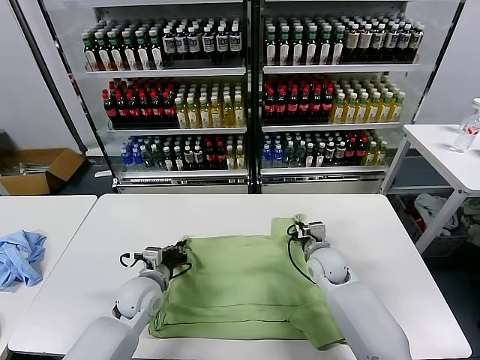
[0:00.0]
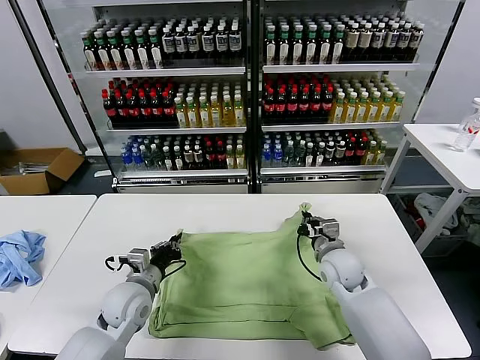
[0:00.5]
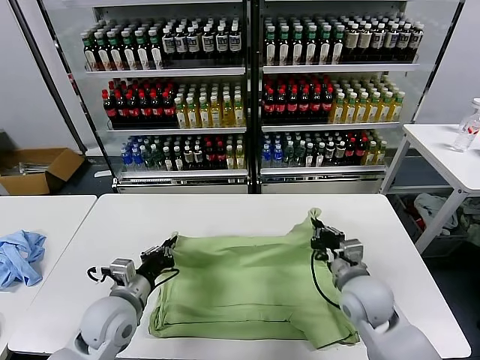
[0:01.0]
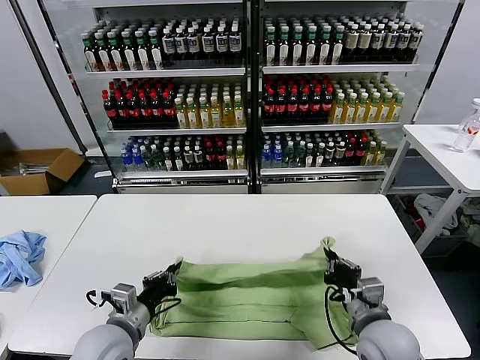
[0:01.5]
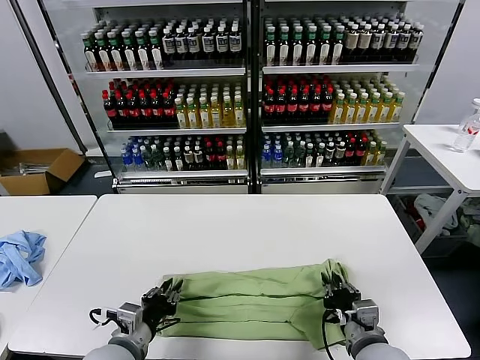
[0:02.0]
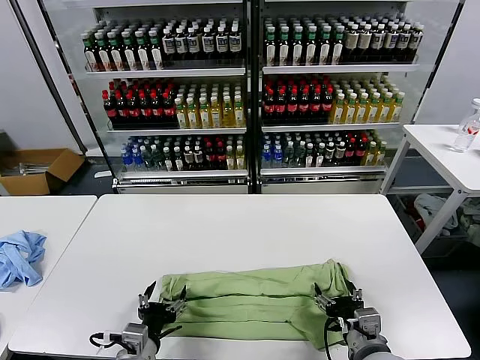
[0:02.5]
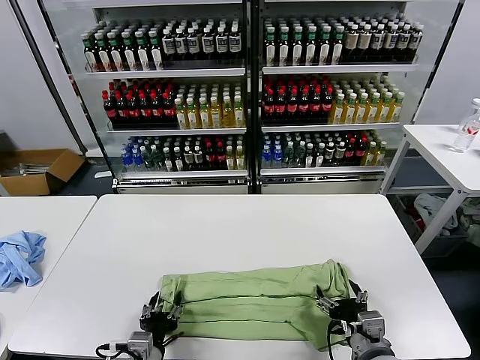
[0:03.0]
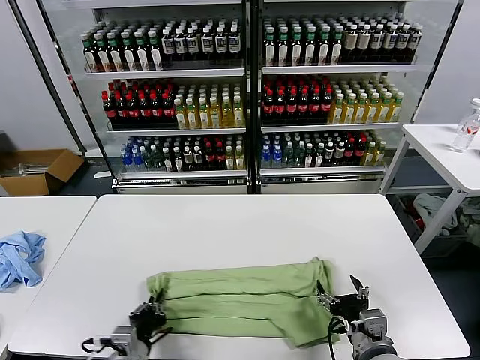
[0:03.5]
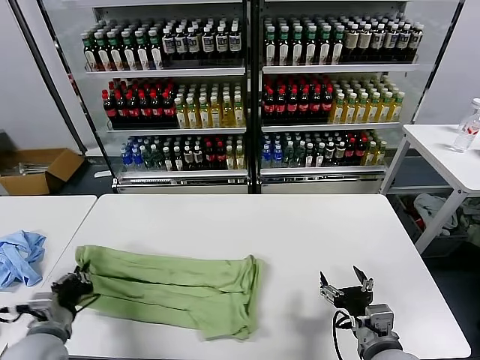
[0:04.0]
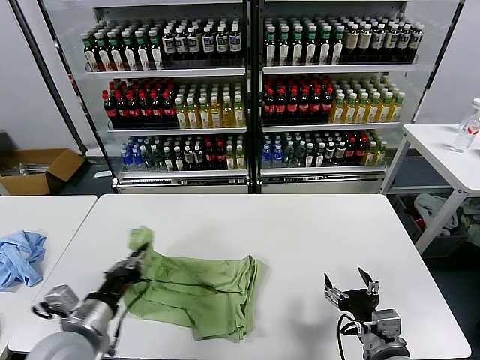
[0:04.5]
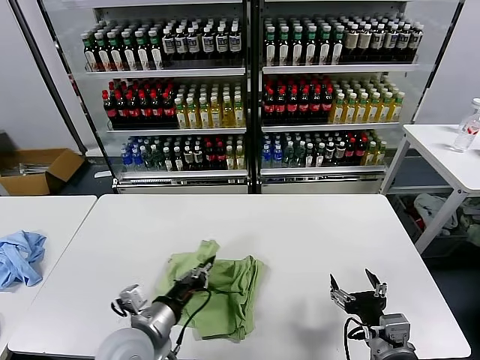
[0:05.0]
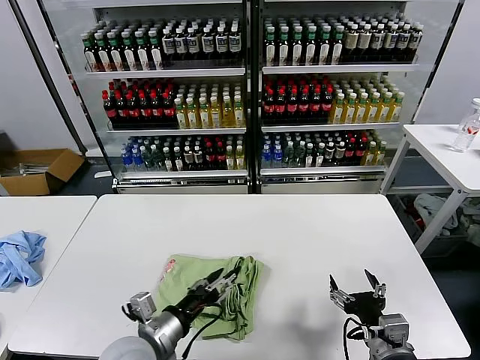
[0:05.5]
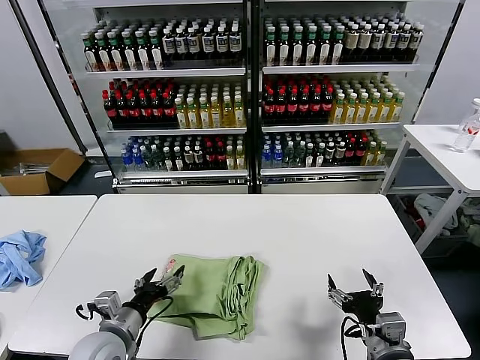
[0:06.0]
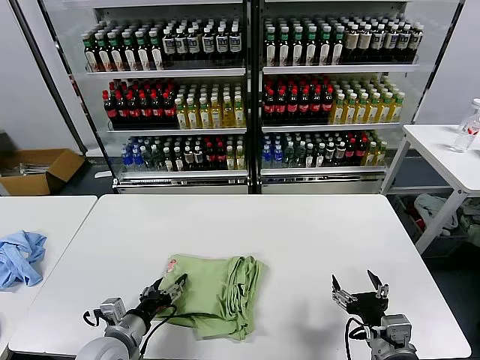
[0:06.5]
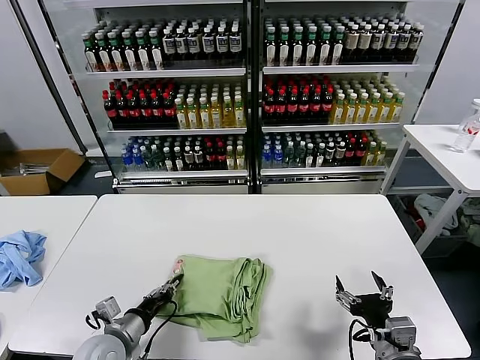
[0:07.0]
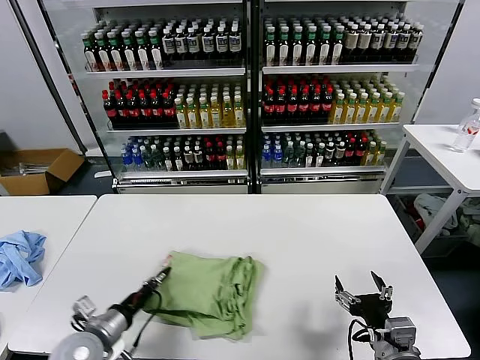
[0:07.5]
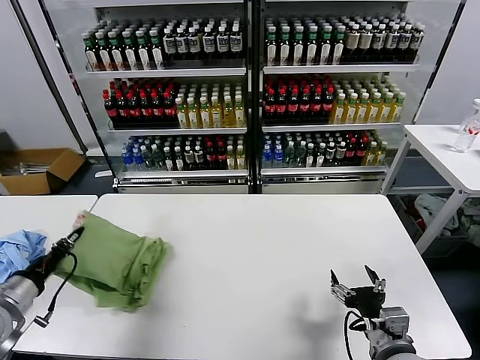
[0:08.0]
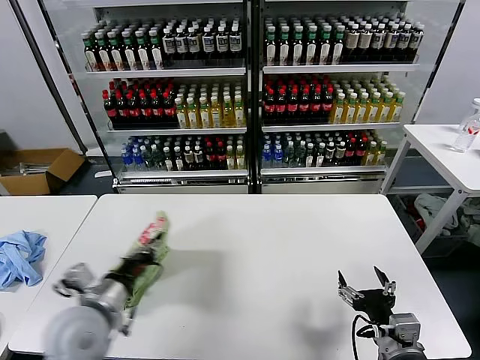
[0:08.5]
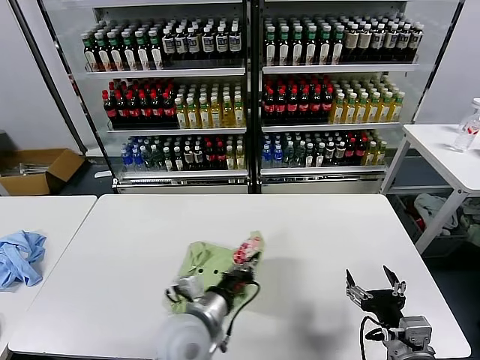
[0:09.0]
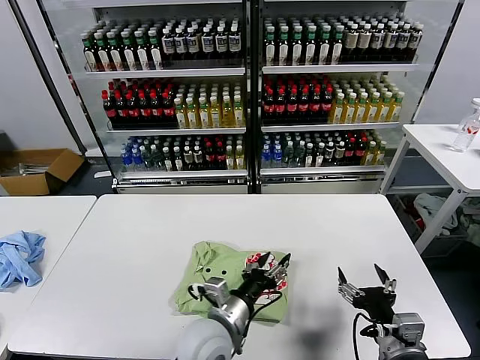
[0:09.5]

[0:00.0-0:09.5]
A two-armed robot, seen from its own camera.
Task of the whole recording: fold and organize the clothes.
Step, 0:00.5 to 0:02.0: use both grippers to drag the upper edge of the fabric backward and fold it over the lower edge.
Step, 0:02.5 to 0:03.0: use the left gripper to clamp the left edge of the fabric.
Step, 0:03.5 to 0:05.0: use the left gripper to drag the left edge of the fabric to the left and folds it over the right edge.
Step, 0:05.5 to 0:09.0: Flip the folded clothes over with left gripper.
0:00.0 to 0:02.0: The right gripper travels backward by about 25 cm. The left gripper travels backward by approximately 15 cm.
0:02.0 to 0:04.0: The left gripper travels to the left by some 15 cm, and opens, then closes once more; the right gripper opens.
0:04.0 to 0:05.5: The left gripper goes some 20 cm to the right, and opens.
0:05.5 to 0:07.5: The left gripper moves to the left and downward, about 15 cm, and closes.
0:07.5 to 0:09.5: The left gripper travels to the right by roughly 25 cm, and opens up.

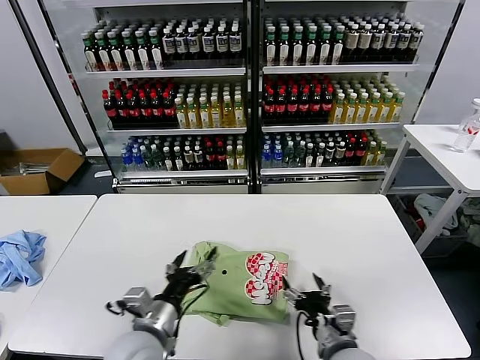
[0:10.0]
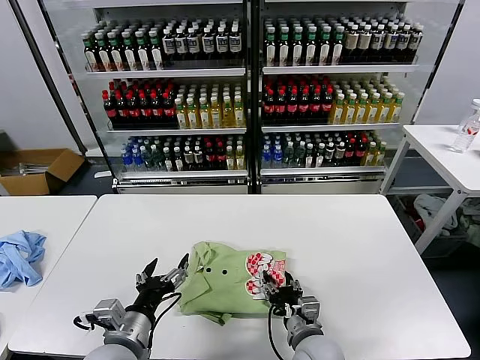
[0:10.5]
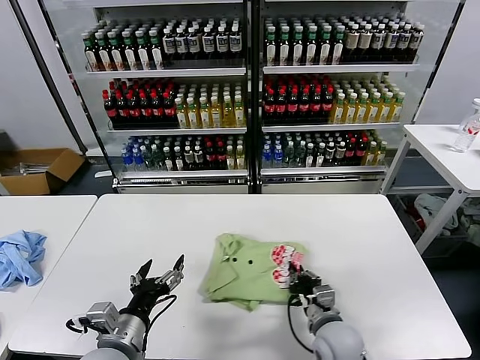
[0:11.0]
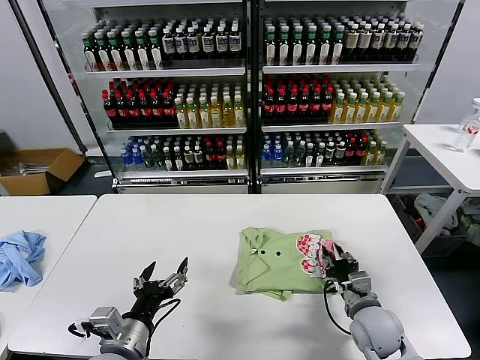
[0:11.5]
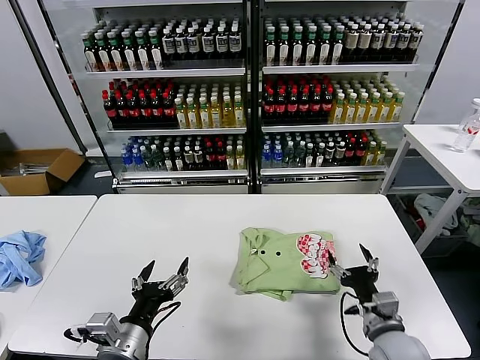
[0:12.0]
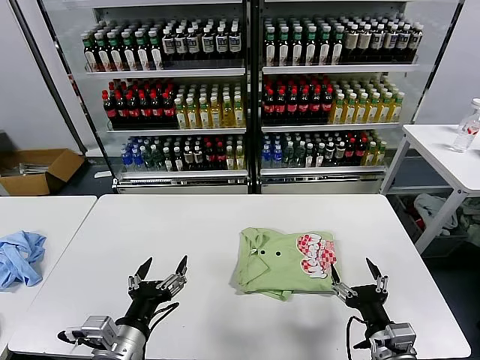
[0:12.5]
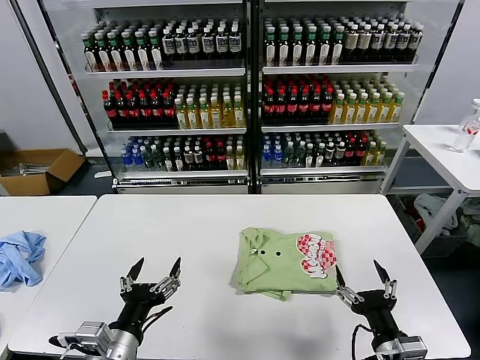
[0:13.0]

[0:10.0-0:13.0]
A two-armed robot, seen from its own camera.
Task of the whole recording: fold and organize the clothes.
Step, 0:10.0 to 0:11.5: Drag the clothes to the center of the table.
0:10.0 to 0:11.5: The left gripper travels to the left by some 5 cm. The right gripper is displaced forward and to the right by roughly 10 cm, and closes its fingers.
0:11.5 to 0:13.0: The right gripper goes about 15 cm backward and upward, and opens up.

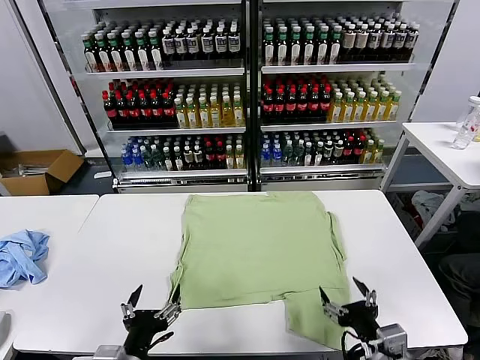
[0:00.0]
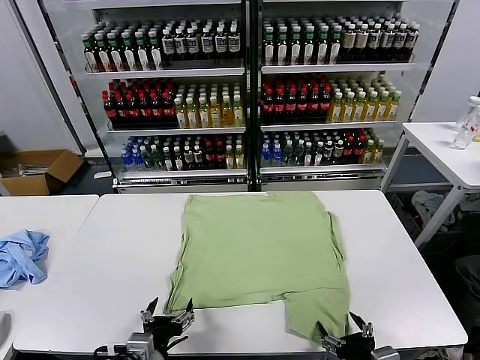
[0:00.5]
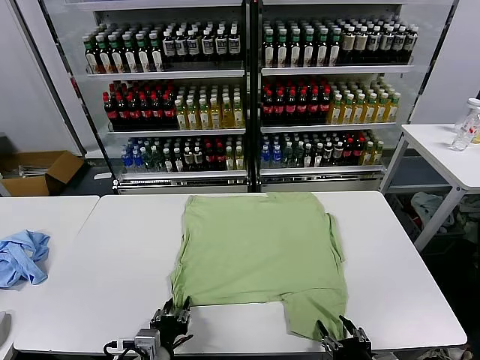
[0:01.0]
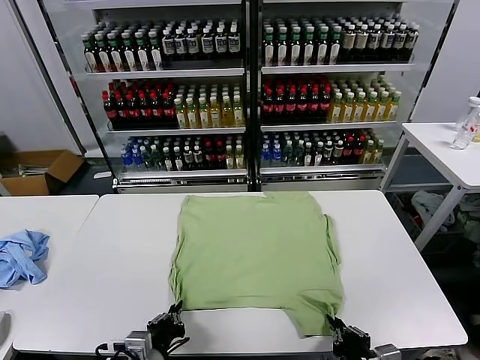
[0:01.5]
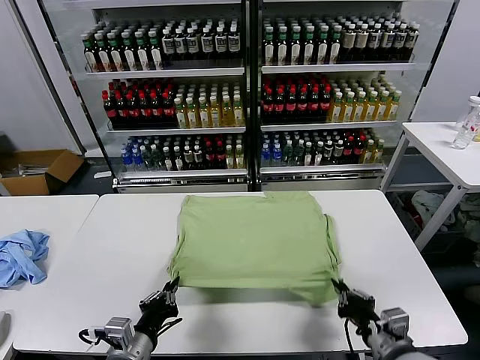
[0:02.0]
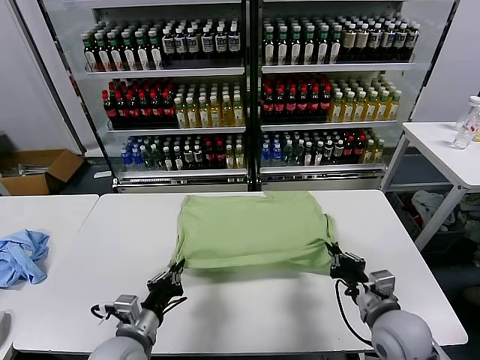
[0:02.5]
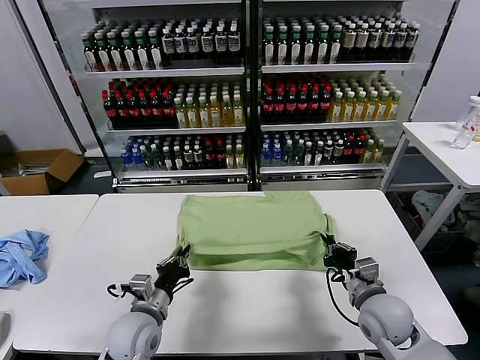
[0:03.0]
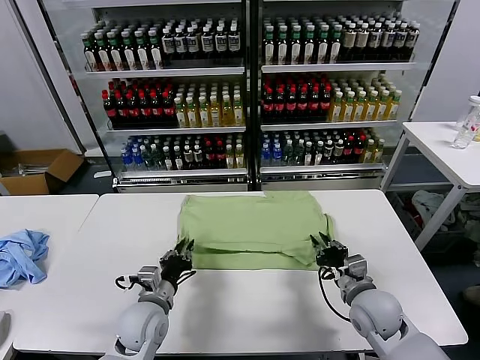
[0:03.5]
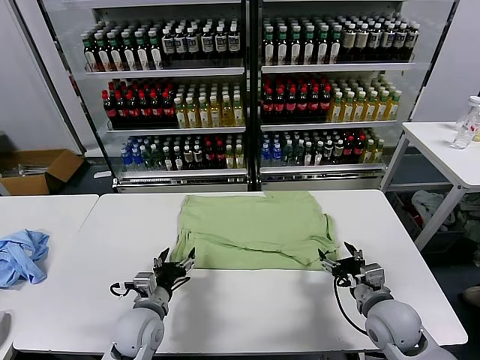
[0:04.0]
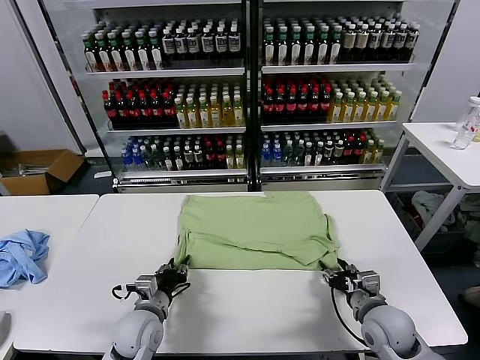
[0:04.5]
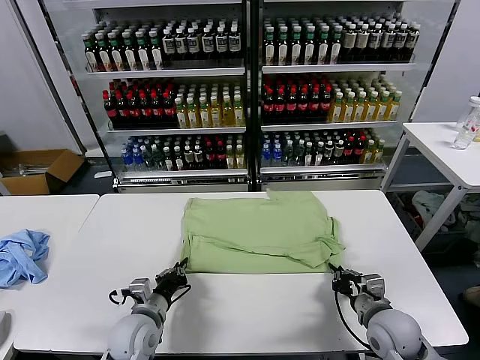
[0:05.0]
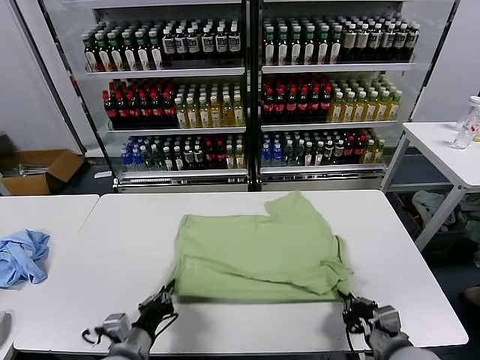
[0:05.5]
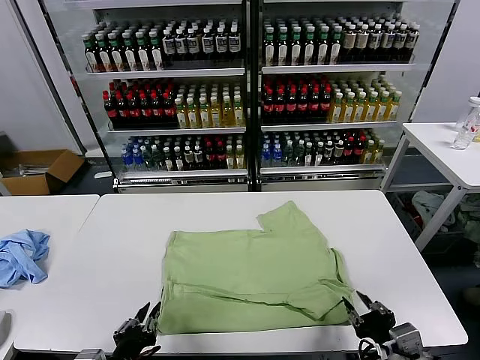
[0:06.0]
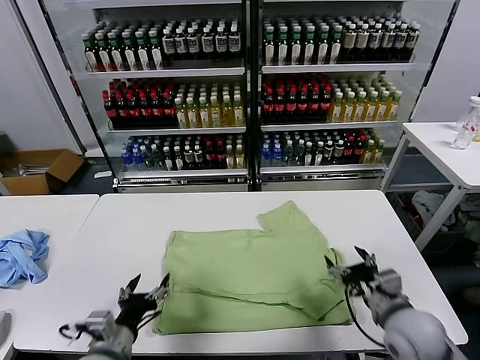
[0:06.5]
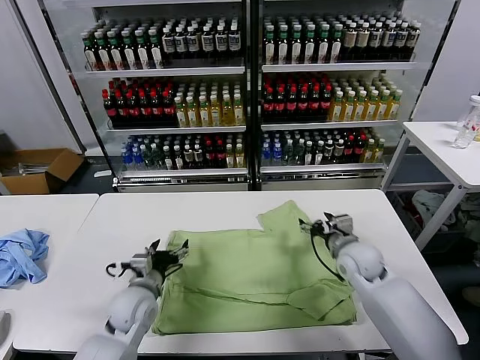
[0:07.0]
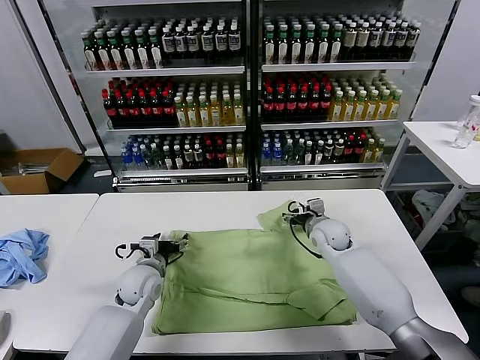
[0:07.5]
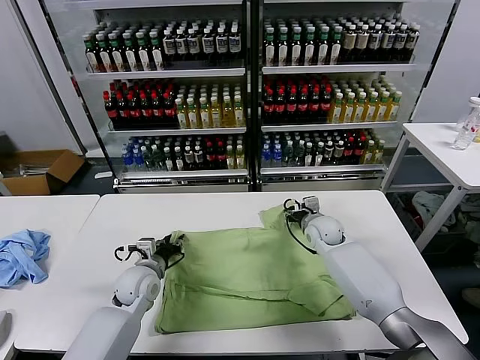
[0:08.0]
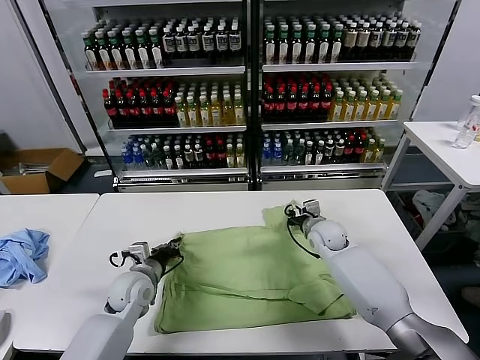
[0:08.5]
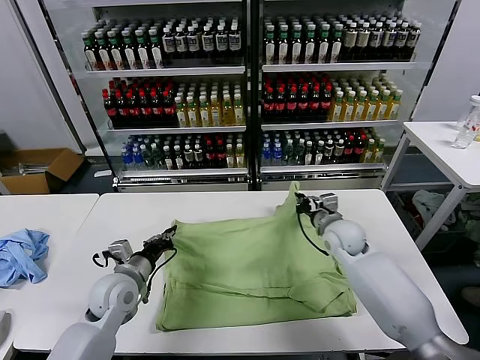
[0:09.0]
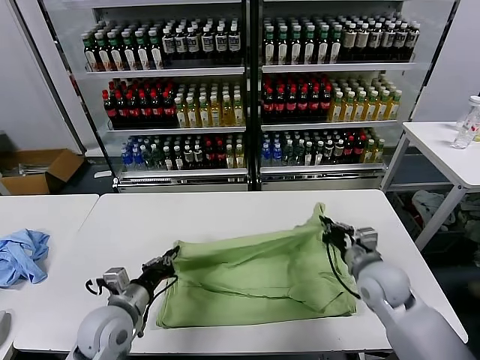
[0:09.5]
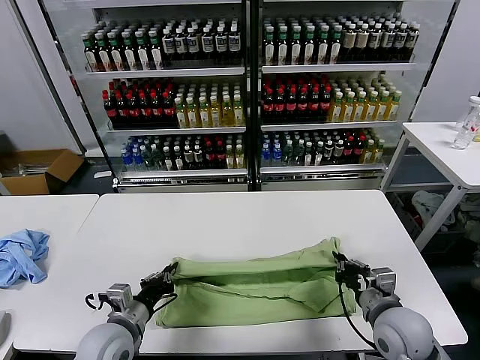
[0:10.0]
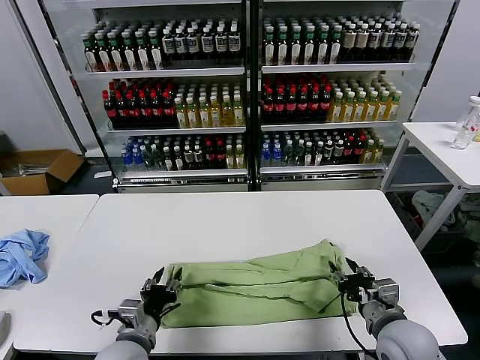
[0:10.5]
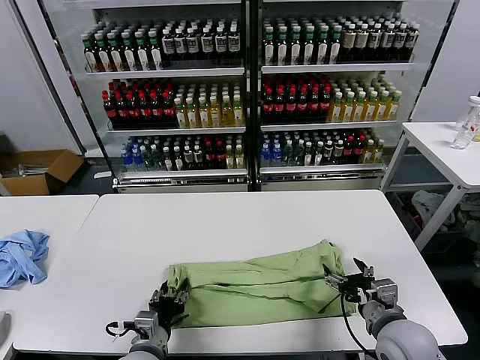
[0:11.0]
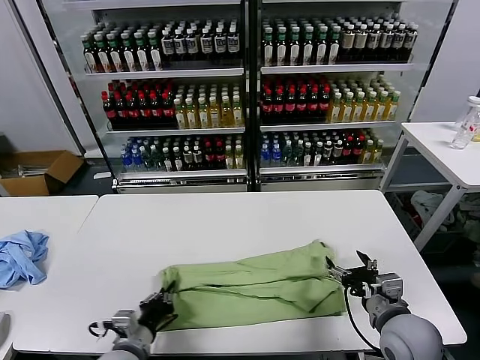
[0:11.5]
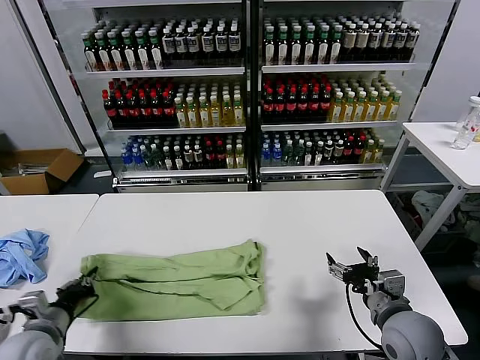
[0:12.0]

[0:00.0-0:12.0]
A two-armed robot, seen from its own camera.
Task of the whole recording: fold and organize the clothes.
Step, 0:00.0 to 0:01.5: use both grippers simultaneously to clamp the lower edge of the clothing fabric.
Step, 0:02.0 to 0:03.5: use both grippers to drag the lower edge of the fabric forward and fold it over the upper edge.
Step, 0:04.0 to 0:06.0: Drag the clothes downward with both gripper.
Step, 0:06.5 to 0:08.5: use both grippers simultaneously to clamp the upper edge of the clothing fabric.
Step, 0:09.0 to 0:10.0: use both grippers to drag the upper edge of the fabric backward and fold it over the lower edge.
Step, 0:10.5 to 0:11.0: use the left gripper to clamp the left edge of the fabric.
0:02.0 to 0:04.0: The right gripper is displaced forward by some 10 cm, and opens up. The left gripper travels forward and downward by roughly 15 cm, and opens.
0:04.0 to 0:06.0: The left gripper travels backward by about 20 cm, and closes up. The right gripper travels backward and upward by roughly 15 cm, and closes.
0:06.0 to 0:08.0: The two grippers go roughly 35 cm forward. The right gripper opens, then closes again. The left gripper opens, then closes again.
0:08.0 to 0:10.0: The left gripper travels backward by approximately 15 cm, and closes up. Meanwhile the right gripper shifts about 30 cm backward, and closes its fingers.
0:10.0 to 0:12.0: The right gripper opens up. Meanwhile the left gripper travels to the left by about 15 cm, and opens, then closes again.
